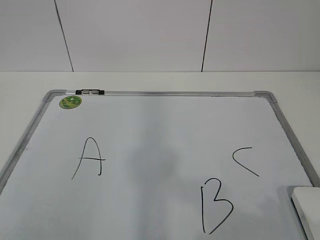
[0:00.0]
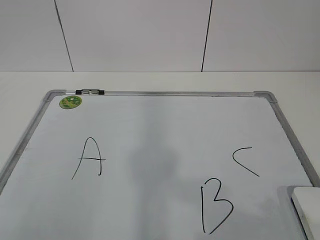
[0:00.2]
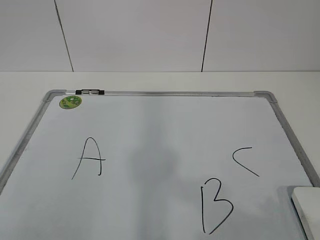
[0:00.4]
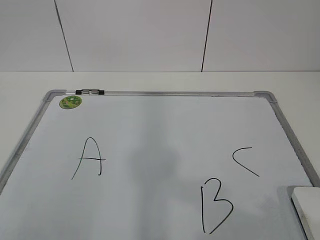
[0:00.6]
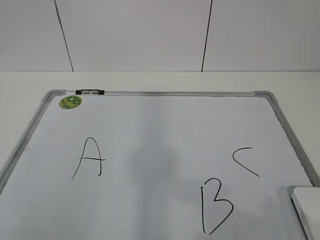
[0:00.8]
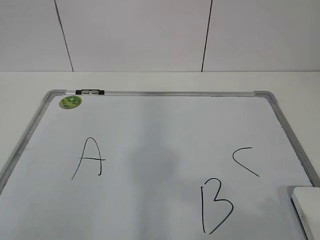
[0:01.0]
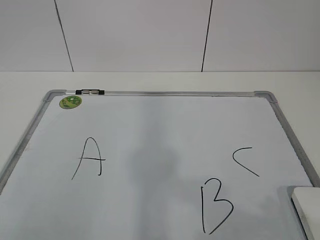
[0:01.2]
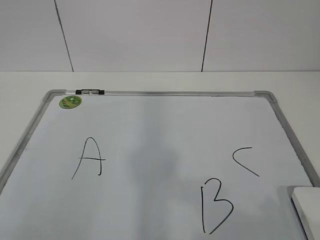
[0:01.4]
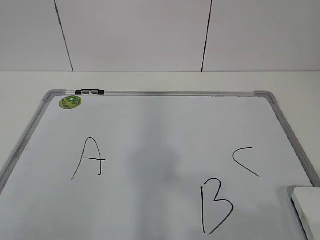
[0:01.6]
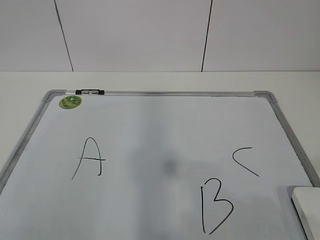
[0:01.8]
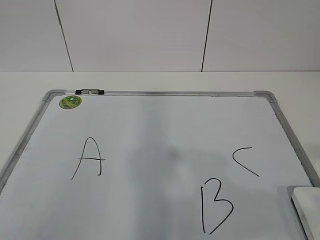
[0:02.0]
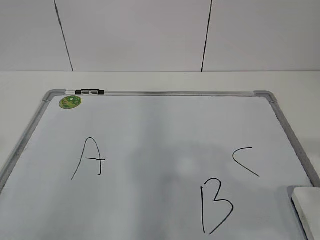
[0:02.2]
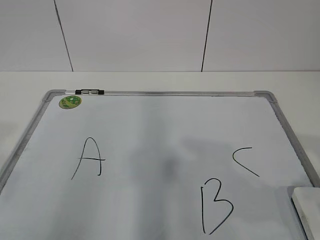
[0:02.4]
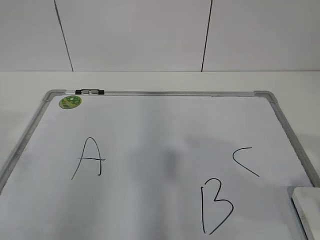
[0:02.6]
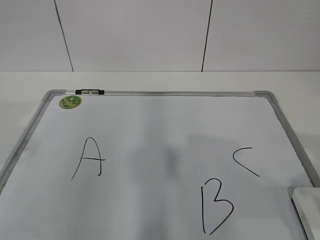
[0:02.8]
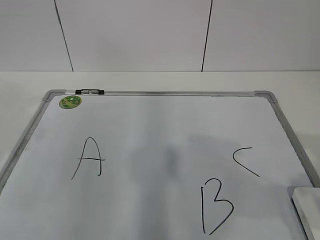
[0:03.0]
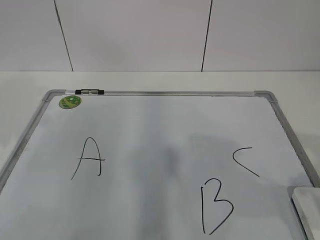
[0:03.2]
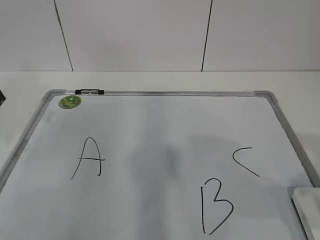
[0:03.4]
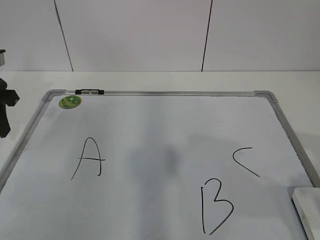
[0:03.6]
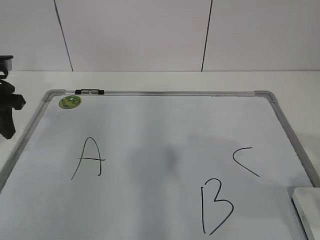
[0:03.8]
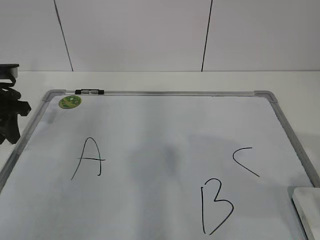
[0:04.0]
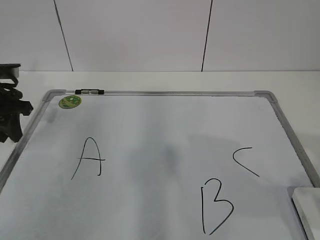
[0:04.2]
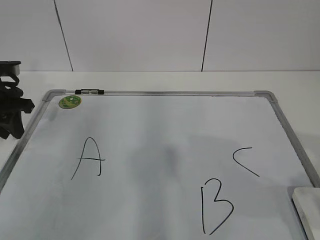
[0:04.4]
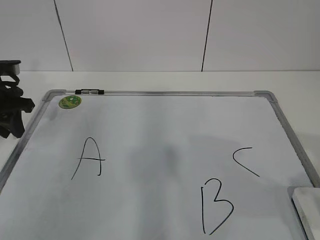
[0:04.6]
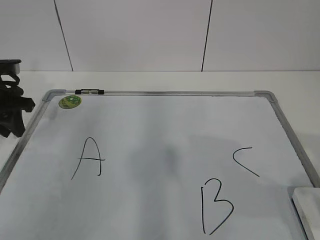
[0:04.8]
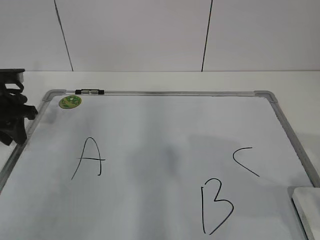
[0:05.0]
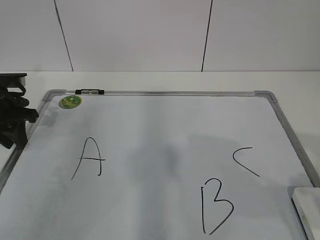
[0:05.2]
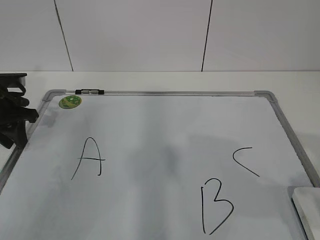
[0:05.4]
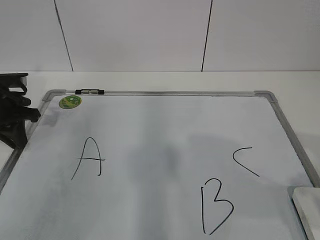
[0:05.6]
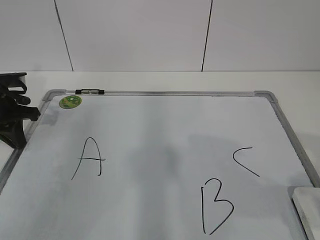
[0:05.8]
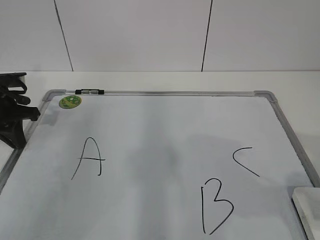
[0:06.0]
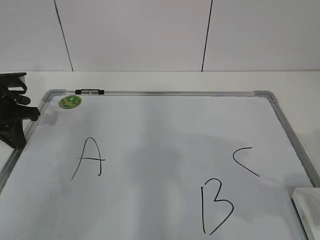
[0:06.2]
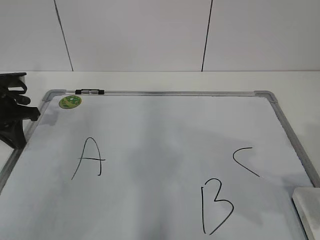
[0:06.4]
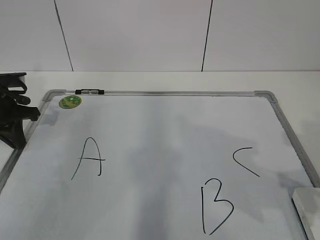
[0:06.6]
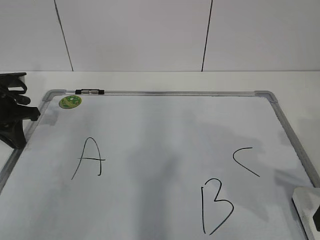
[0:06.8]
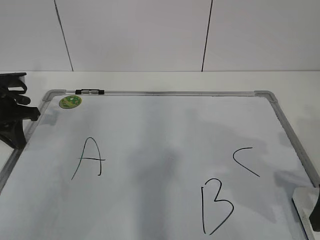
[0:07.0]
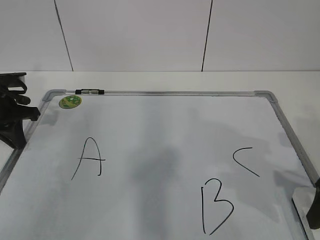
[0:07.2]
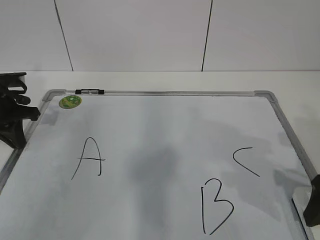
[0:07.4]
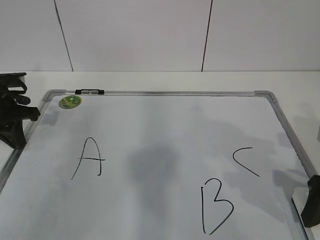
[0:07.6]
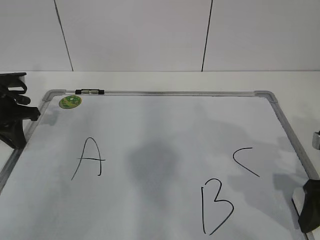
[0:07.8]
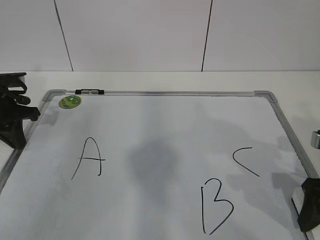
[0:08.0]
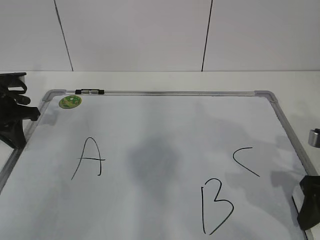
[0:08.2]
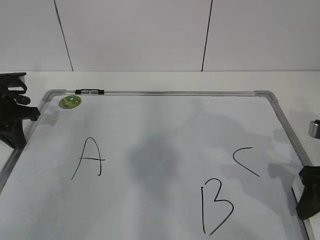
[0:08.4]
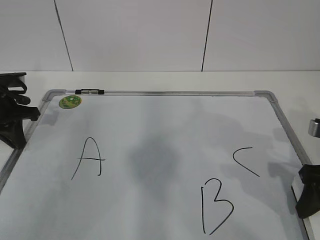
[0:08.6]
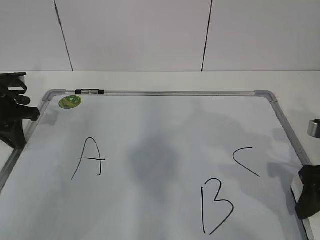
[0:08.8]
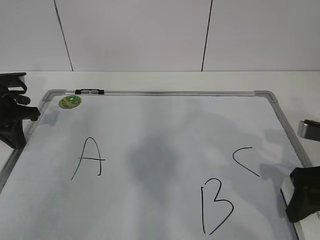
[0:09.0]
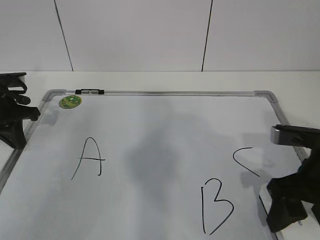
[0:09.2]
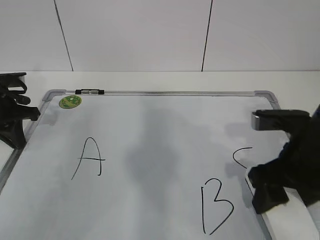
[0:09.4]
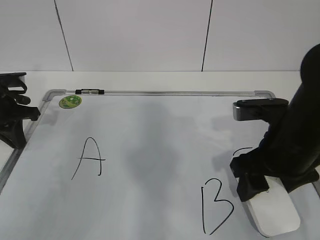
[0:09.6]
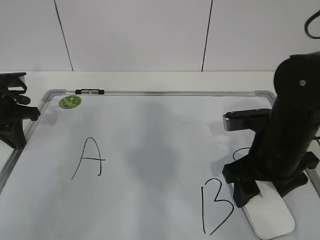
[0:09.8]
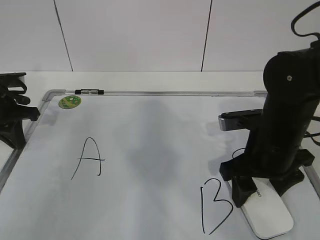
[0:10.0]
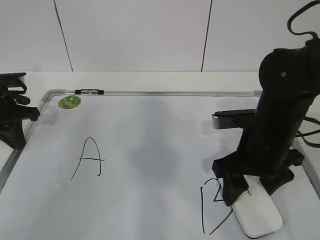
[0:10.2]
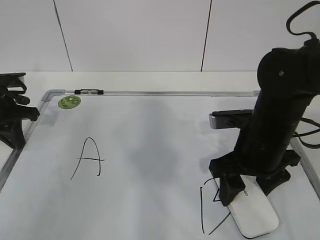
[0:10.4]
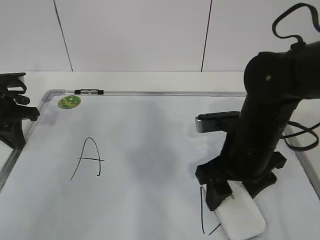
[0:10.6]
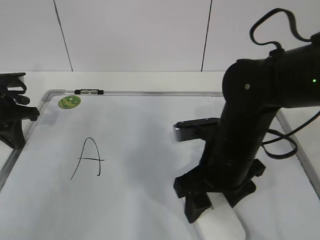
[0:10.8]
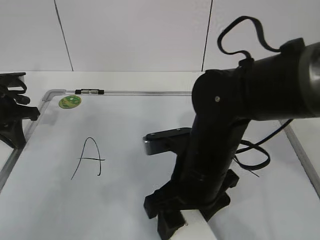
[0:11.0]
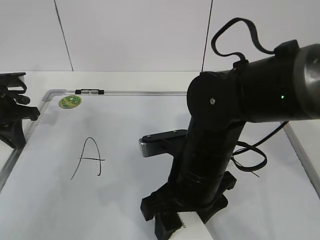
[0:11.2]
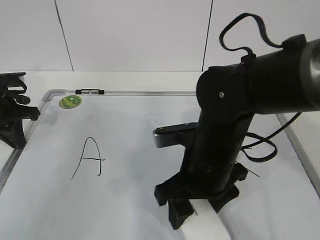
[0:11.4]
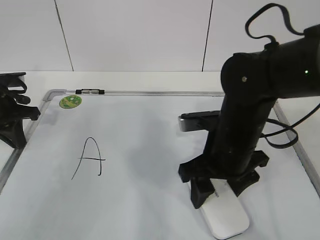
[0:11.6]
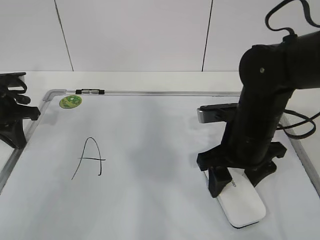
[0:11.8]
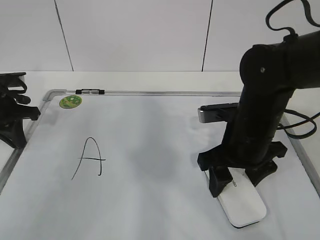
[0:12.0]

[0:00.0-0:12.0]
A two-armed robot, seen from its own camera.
Task of the whole recording: pick up the eraser on the blackboard and erase the letter "B".
Step, 0:00.0 to 0:04.6: Hold the drawing board steady with your left hand.
Step, 0:06.6 to 0:11.2: Erase the letter B with your right hand.
0:01.6 to 0:03.0: The right gripper heads forward, covering some 10 cm.
0:03.0 to 0:04.4: The left gripper travels forward and downward by some 20 cm.
0:04.4 to 0:06.0: The left gripper closes up.
0:06.0 to 0:07.6: The right gripper goes about 15 cm forward and downward.
0:07.6 to 0:09.0: The right gripper closes.
0:09.0 to 0:10.4: The right gripper travels to the left and forward by roughly 10 cm.
0:10.4 to 0:12.0: The right gripper moves some 10 cm to the left and comes back.

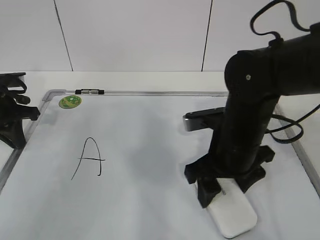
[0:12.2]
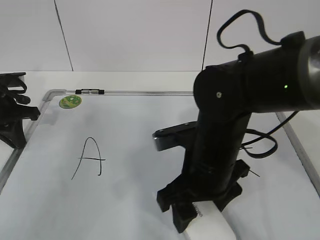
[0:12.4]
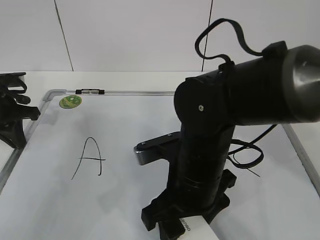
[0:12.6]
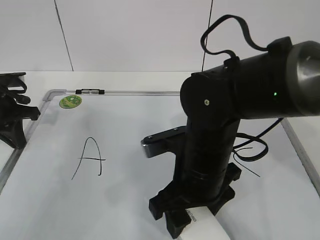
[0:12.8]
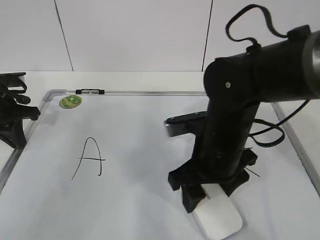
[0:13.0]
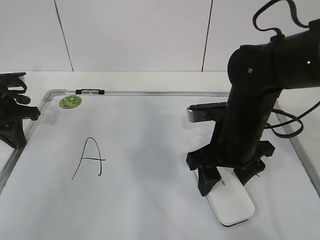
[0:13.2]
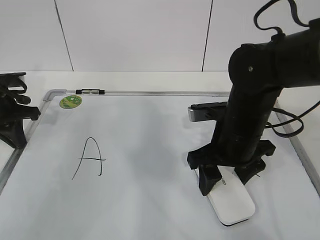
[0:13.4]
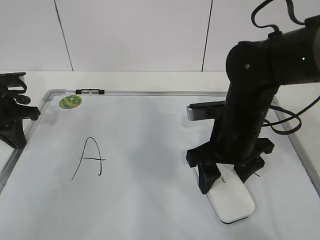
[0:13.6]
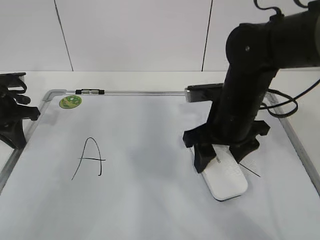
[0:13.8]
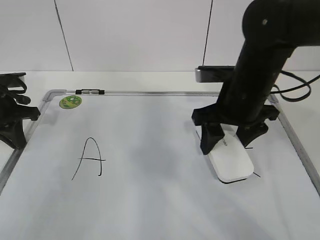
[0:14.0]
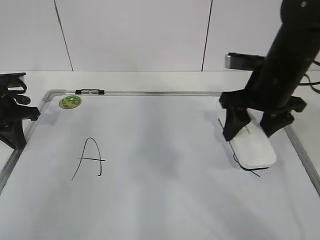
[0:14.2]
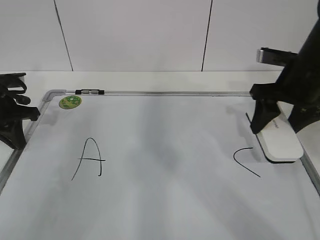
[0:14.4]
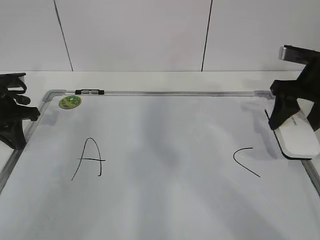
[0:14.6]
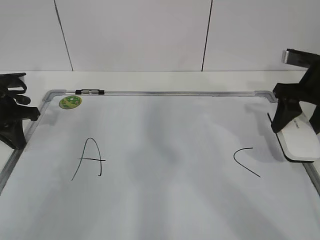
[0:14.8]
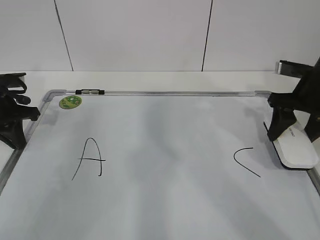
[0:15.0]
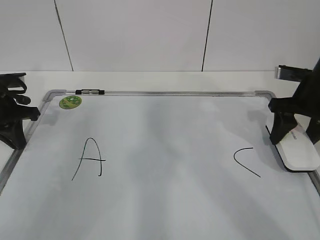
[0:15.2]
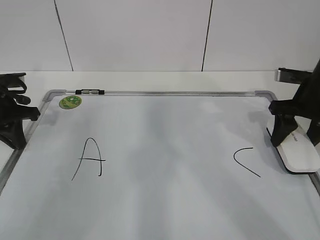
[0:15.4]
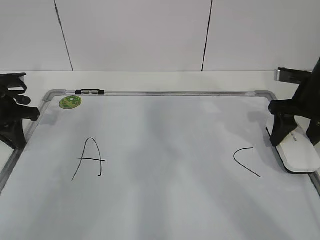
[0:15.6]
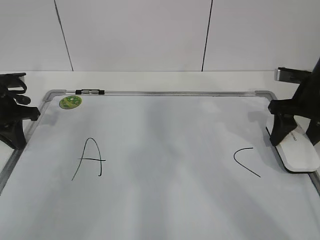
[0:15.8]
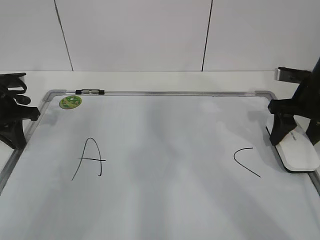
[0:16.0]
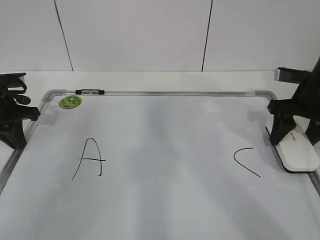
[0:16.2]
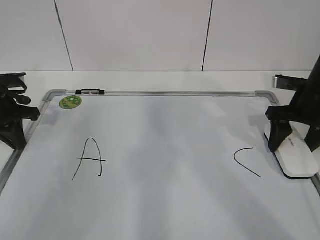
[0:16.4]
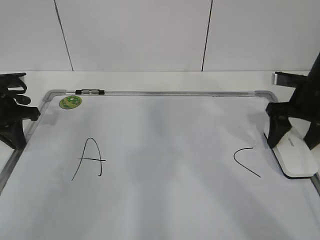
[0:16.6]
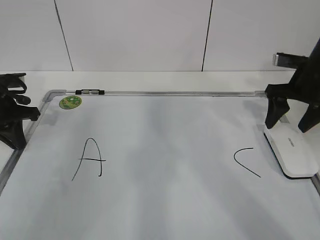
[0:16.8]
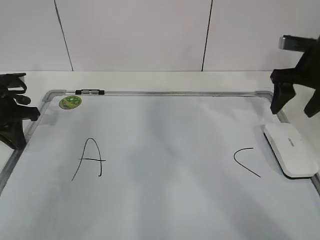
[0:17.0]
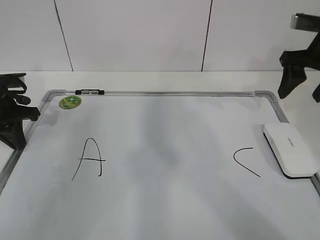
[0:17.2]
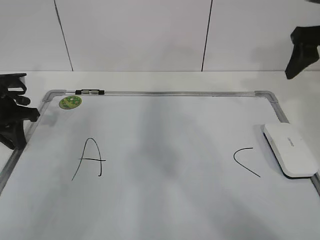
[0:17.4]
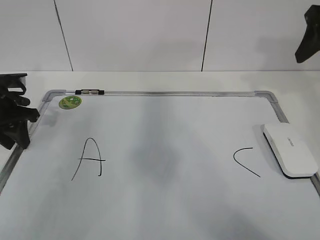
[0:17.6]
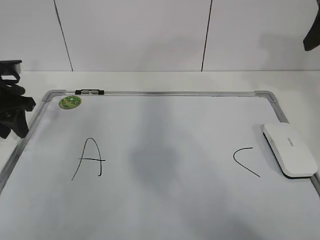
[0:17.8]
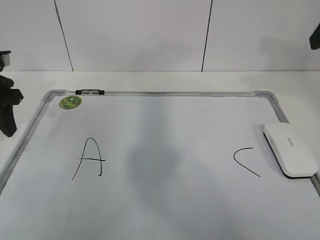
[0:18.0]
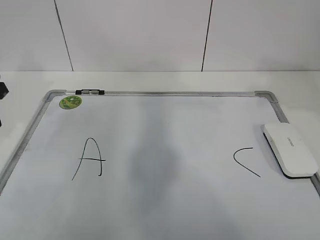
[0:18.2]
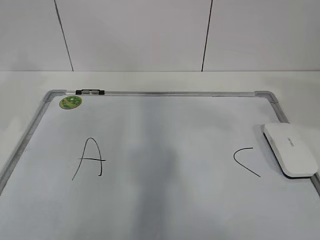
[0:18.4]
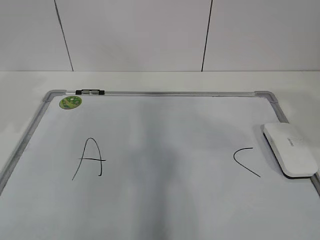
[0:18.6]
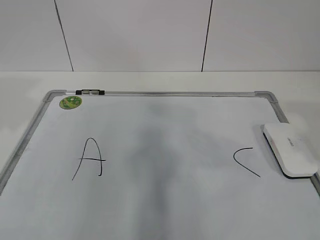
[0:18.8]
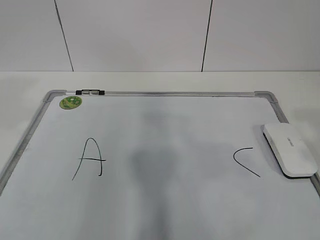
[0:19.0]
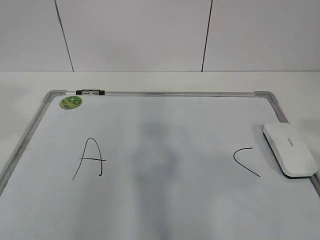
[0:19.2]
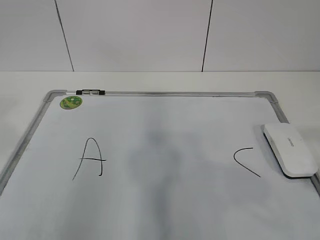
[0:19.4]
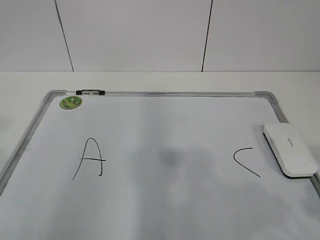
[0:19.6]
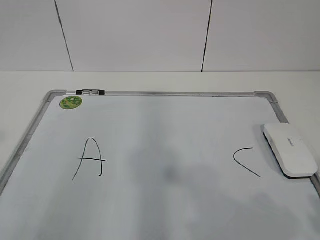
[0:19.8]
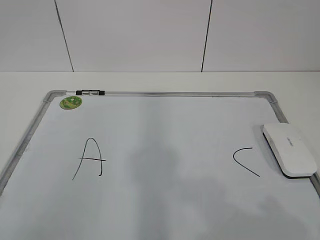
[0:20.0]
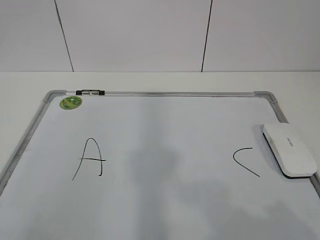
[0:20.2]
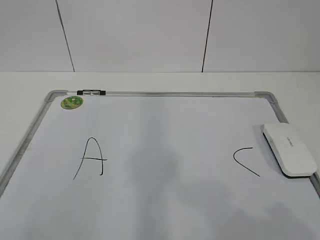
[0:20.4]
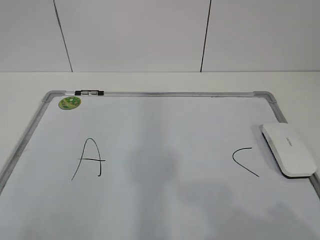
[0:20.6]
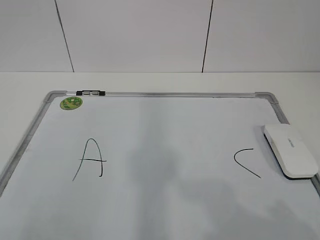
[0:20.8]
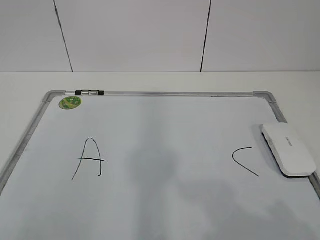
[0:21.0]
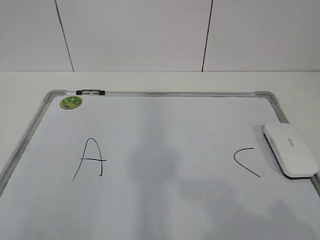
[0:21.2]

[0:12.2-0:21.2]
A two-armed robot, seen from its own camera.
Task of the whole recording: pick up the eraser on the blackboard and erase the letter "B".
Step, 0:12.2 to 0:13.6: Put down the eraser with your right hand.
0:13.8 to 0:15.2: The right gripper goes about 15 cm to the right.
0:15.2 to 0:16.6: The right gripper opens up.
0:16.6 to 0:18.2: The right gripper travels upward and backward by about 25 cm, and closes. Meanwhile the left gripper travels upward by approximately 10 cm, and opens.
0:18.2 to 0:19.8: The two grippers go roughly 25 cm backward.

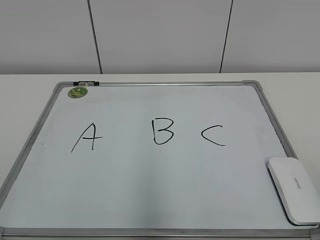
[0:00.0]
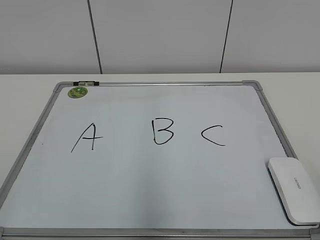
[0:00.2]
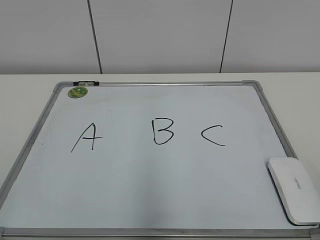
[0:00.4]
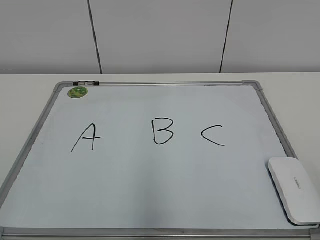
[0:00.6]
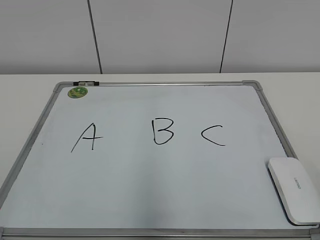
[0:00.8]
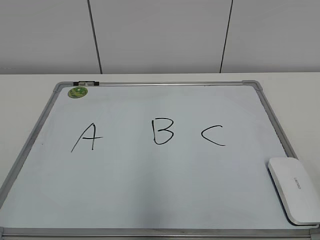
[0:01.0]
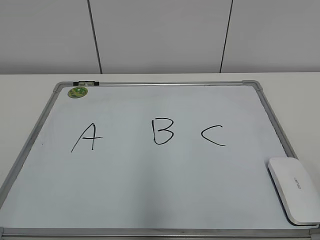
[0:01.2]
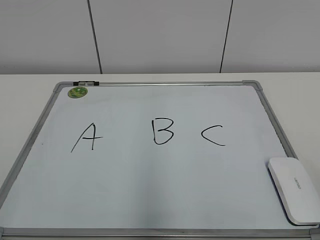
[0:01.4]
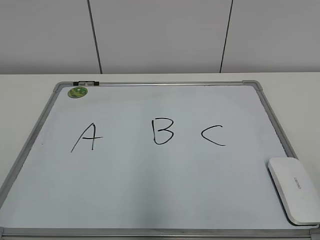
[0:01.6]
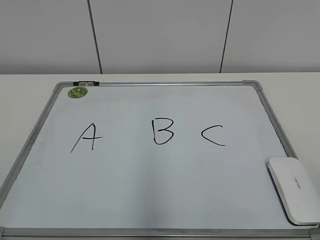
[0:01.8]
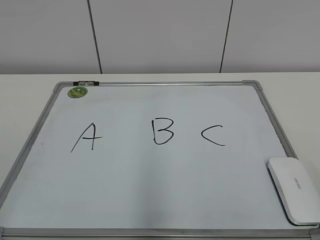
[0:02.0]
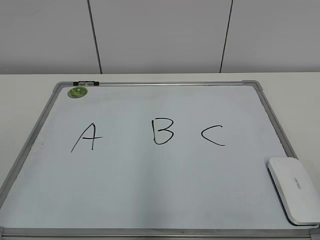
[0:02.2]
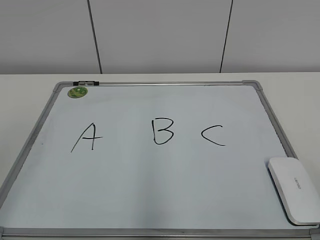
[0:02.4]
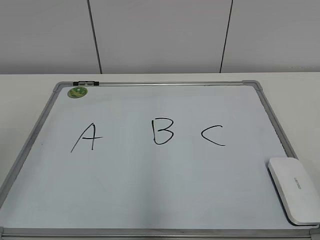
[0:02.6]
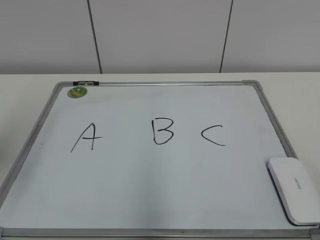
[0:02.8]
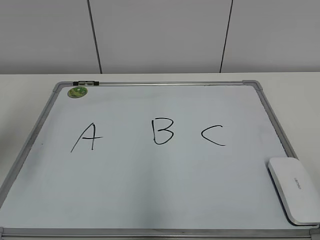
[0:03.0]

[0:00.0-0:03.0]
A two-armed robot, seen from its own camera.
Task of the whole recording: pick up the eraser on the blackboard and erase the letter "B".
0:01.6 to 0:03.0: The left gripper heads forward, covering some 25 cm.
